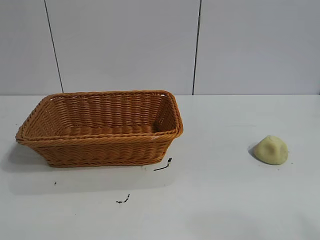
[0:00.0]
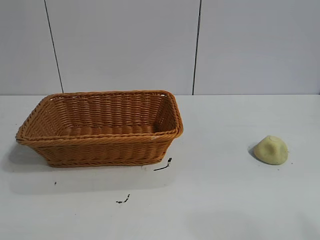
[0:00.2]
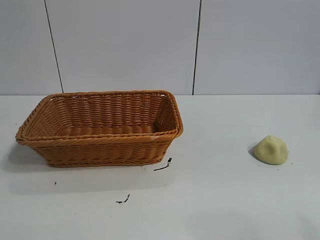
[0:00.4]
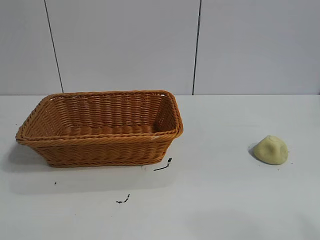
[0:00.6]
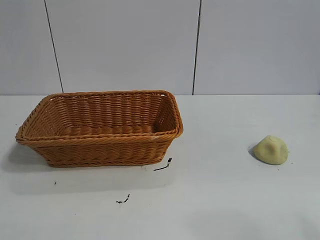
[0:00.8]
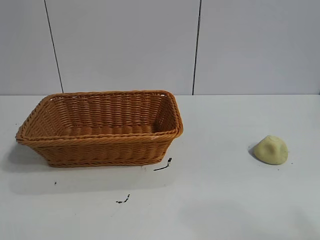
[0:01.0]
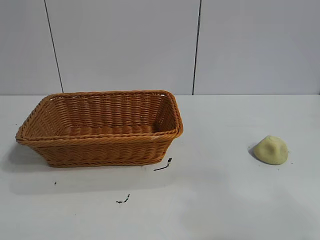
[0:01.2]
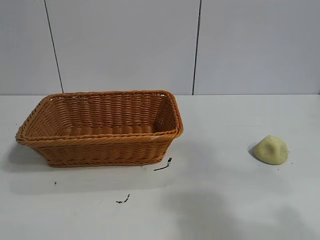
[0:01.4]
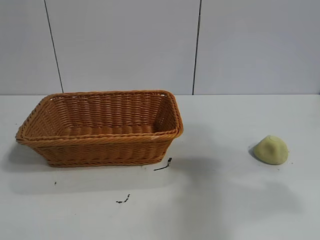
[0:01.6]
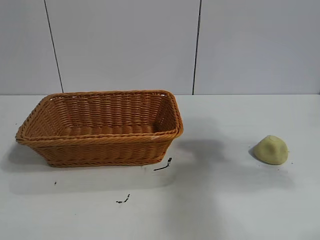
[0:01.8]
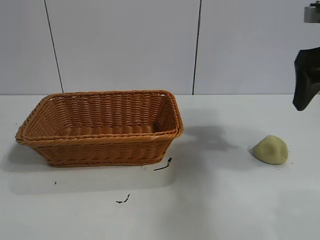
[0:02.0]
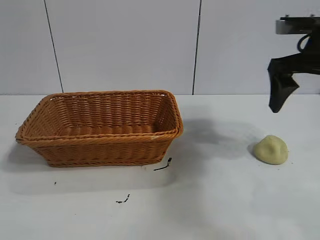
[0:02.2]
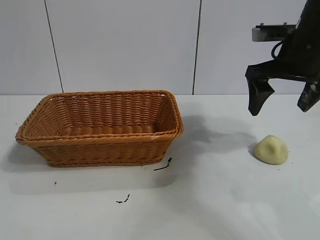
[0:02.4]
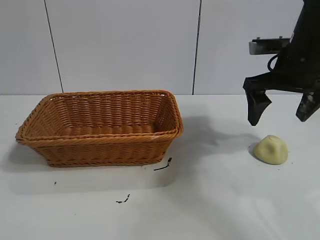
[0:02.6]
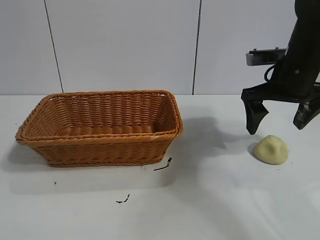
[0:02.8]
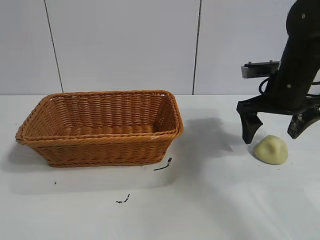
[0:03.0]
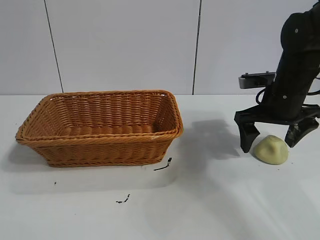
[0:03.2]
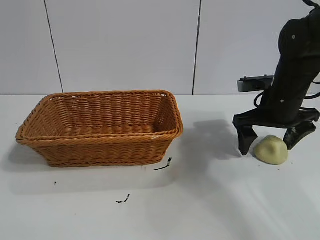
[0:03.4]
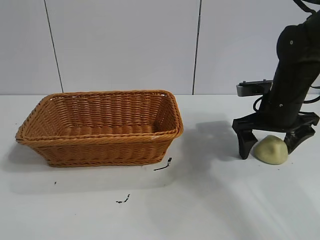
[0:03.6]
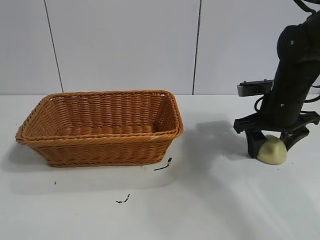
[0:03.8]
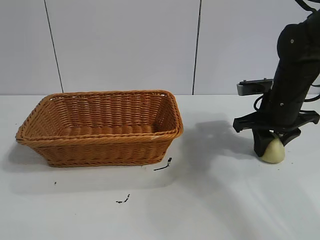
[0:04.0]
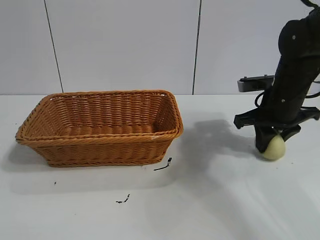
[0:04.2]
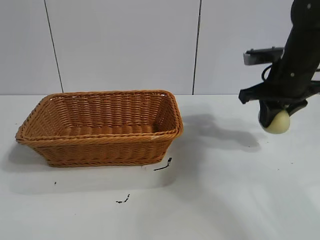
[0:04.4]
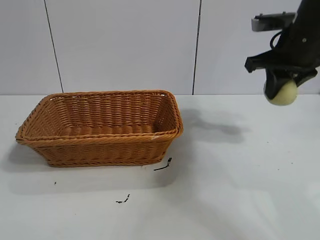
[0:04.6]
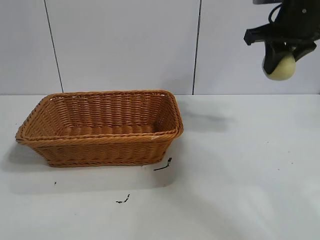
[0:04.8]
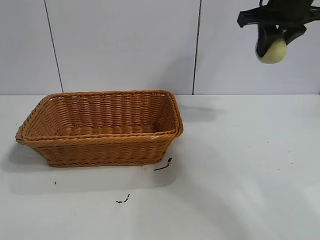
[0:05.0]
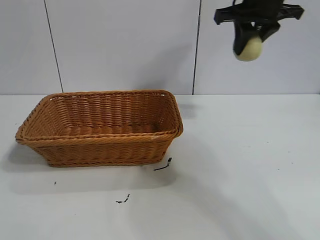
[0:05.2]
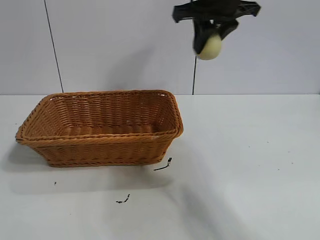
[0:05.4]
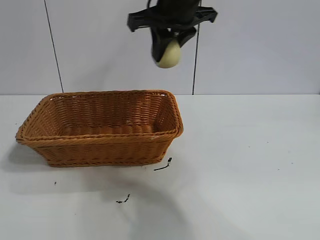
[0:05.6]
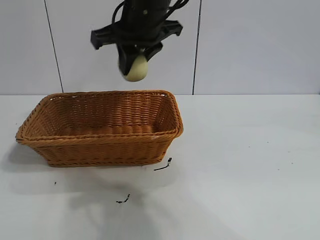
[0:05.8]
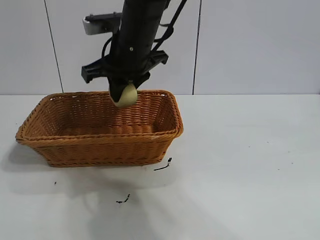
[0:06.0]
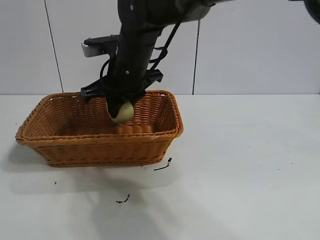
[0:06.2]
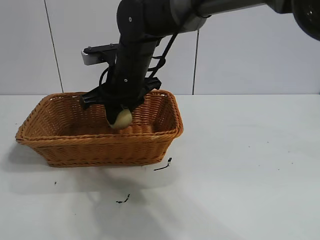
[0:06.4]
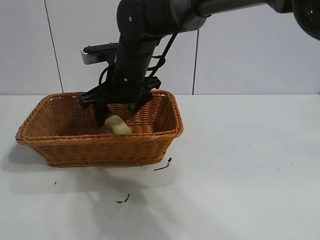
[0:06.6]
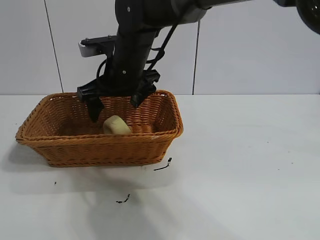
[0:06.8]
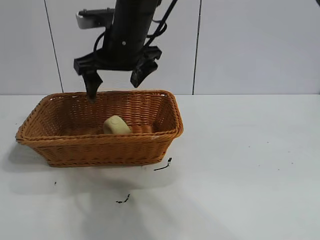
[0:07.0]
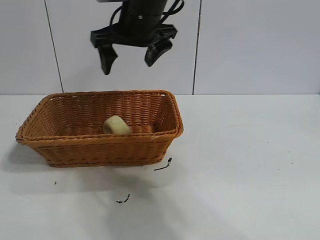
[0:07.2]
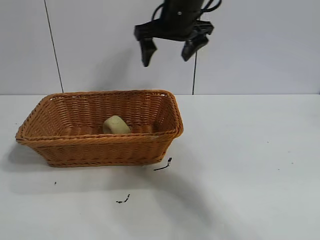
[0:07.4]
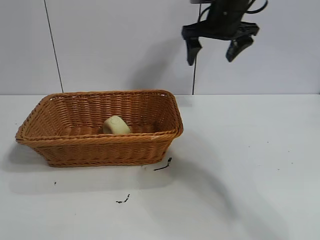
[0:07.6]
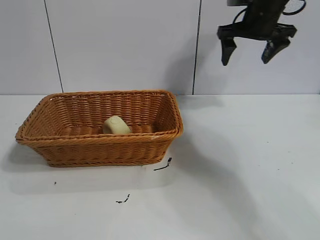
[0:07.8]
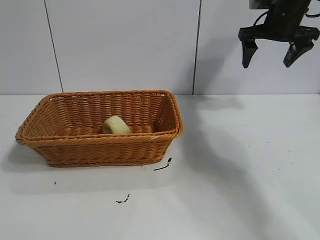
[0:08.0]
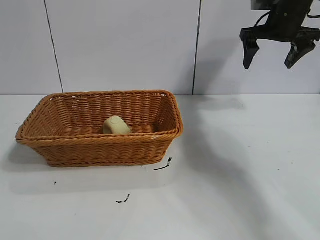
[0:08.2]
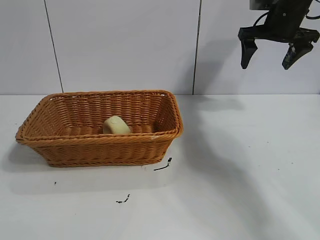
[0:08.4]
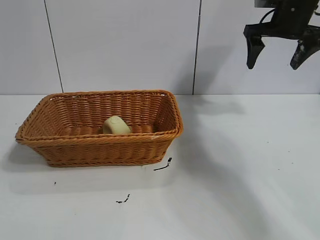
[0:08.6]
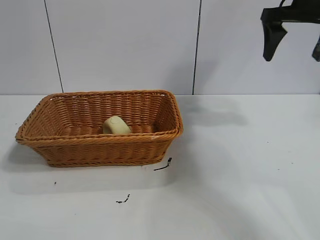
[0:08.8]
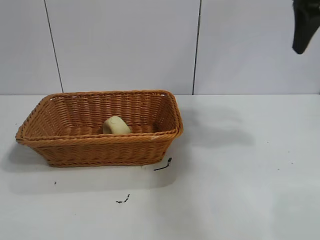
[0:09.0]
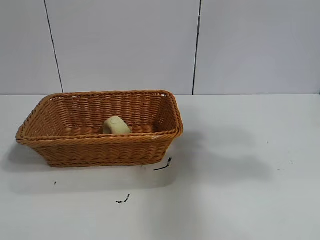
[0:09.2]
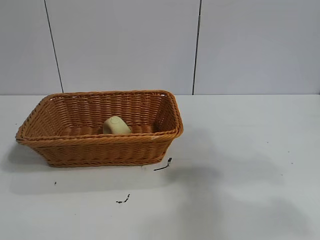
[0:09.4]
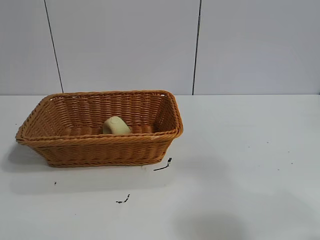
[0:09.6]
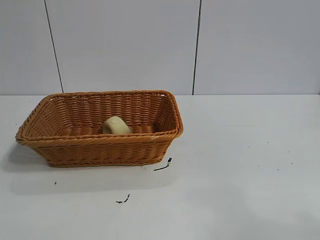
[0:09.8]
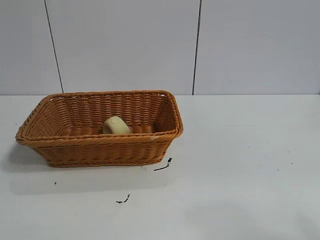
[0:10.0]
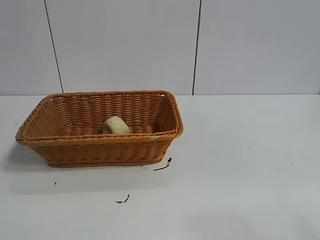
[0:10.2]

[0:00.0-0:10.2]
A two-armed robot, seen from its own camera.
Task of the whole recording: pick up the egg yolk pastry and put it into the basket.
Step, 0:01.0 to 0:03.8: Grasp egg yolk pastry with right gripper.
Step, 0:04.2 to 0:06.6: Place the egg yolk pastry in the basket with right gripper.

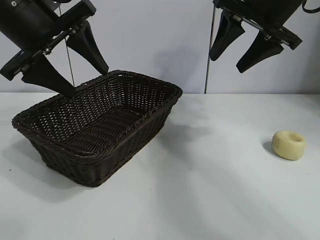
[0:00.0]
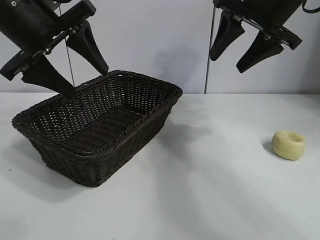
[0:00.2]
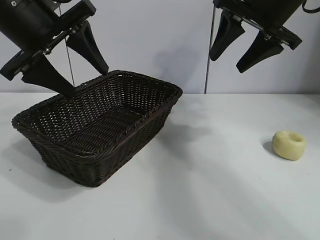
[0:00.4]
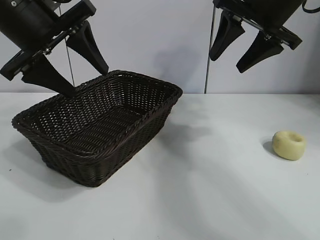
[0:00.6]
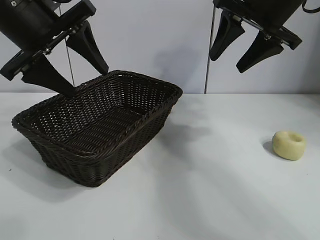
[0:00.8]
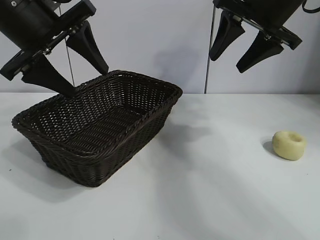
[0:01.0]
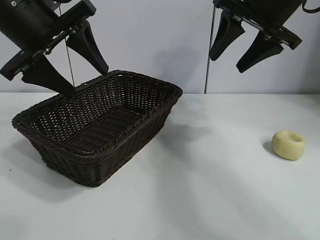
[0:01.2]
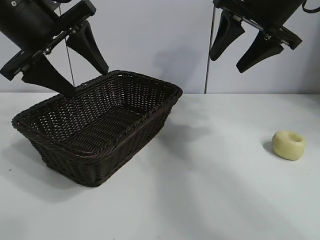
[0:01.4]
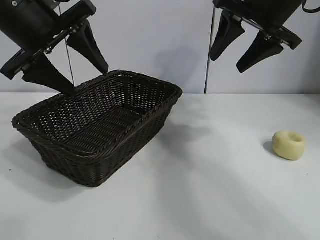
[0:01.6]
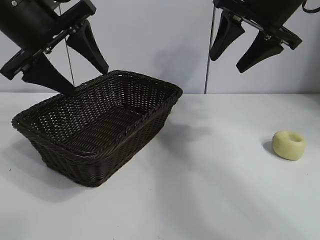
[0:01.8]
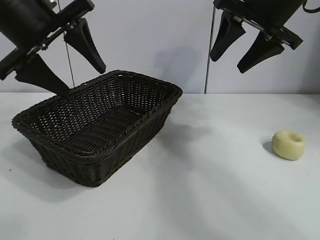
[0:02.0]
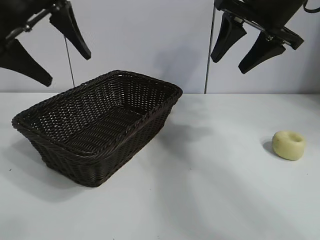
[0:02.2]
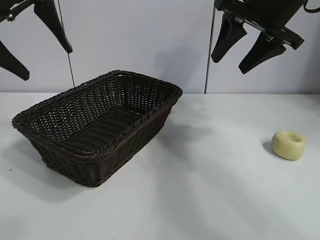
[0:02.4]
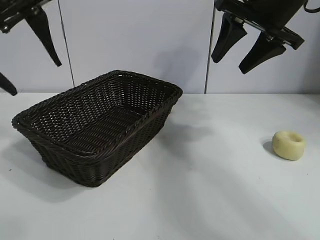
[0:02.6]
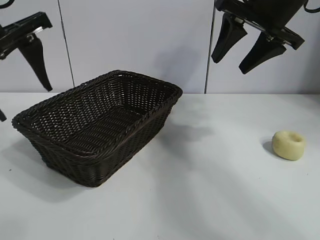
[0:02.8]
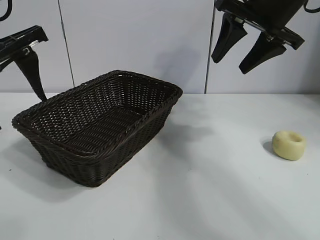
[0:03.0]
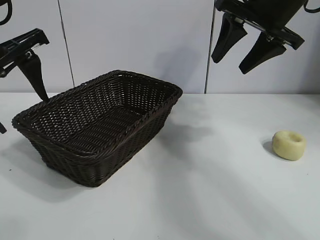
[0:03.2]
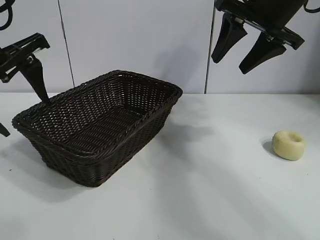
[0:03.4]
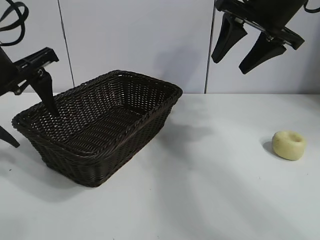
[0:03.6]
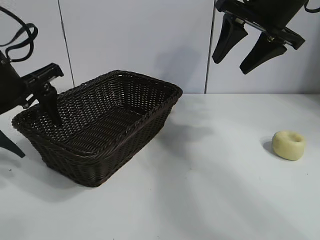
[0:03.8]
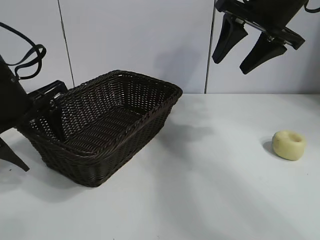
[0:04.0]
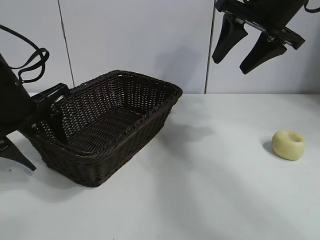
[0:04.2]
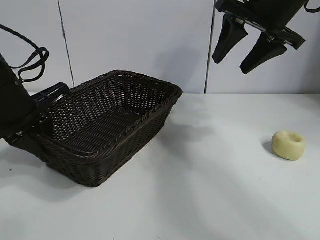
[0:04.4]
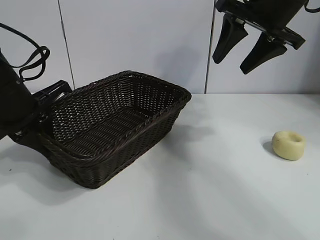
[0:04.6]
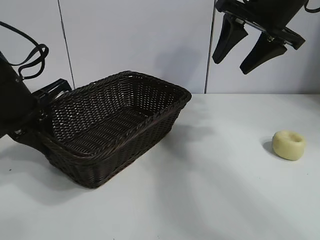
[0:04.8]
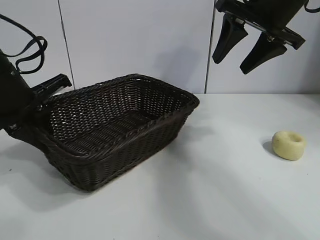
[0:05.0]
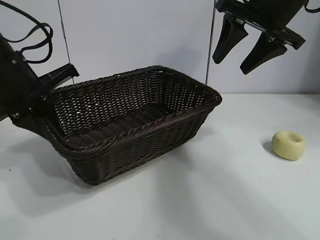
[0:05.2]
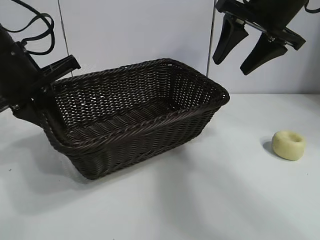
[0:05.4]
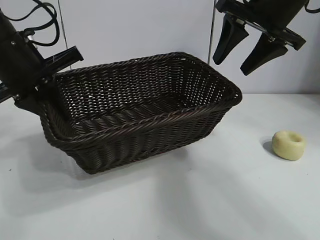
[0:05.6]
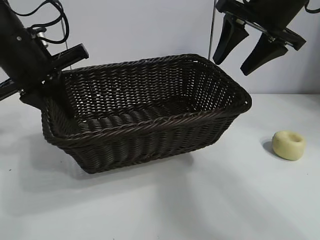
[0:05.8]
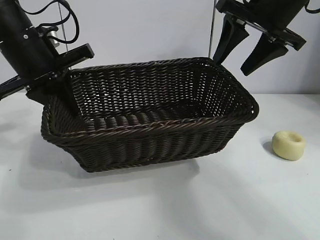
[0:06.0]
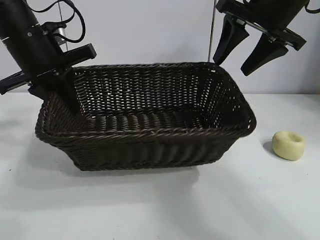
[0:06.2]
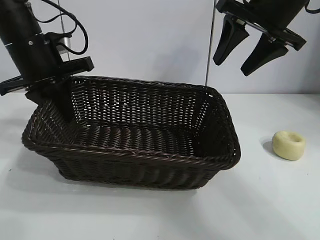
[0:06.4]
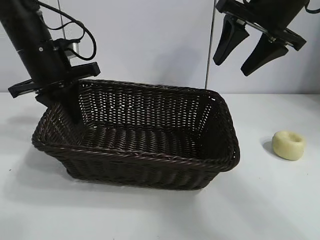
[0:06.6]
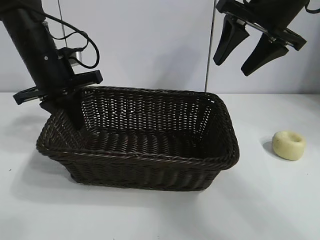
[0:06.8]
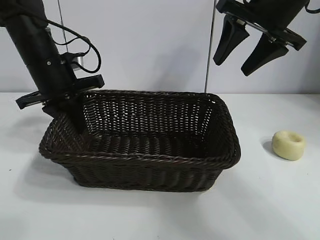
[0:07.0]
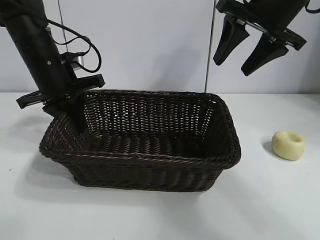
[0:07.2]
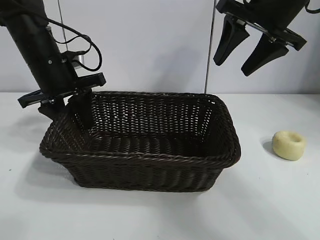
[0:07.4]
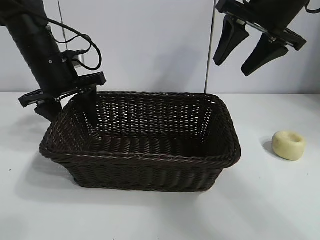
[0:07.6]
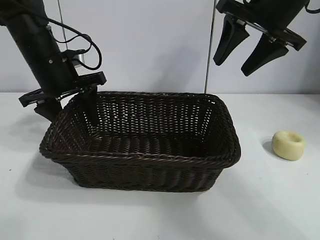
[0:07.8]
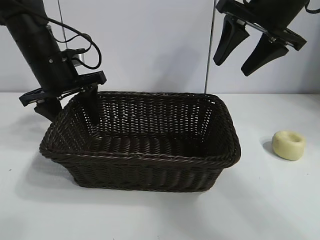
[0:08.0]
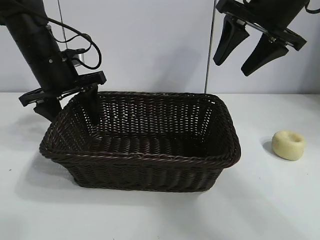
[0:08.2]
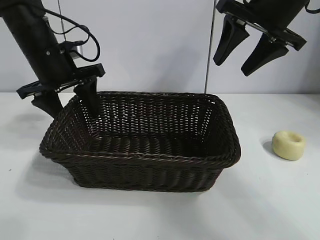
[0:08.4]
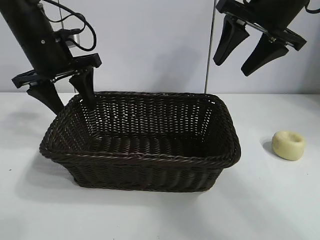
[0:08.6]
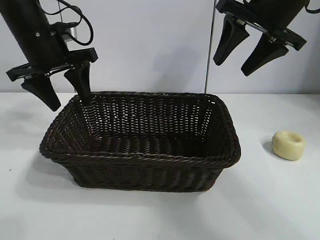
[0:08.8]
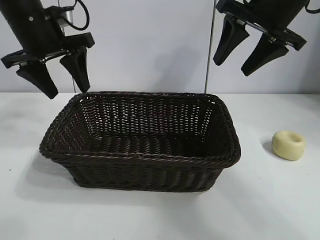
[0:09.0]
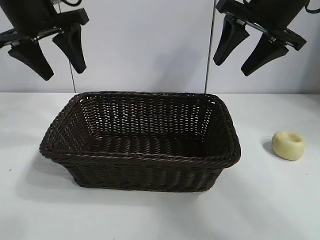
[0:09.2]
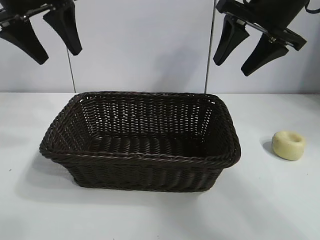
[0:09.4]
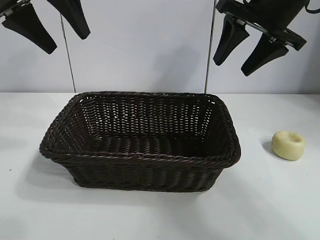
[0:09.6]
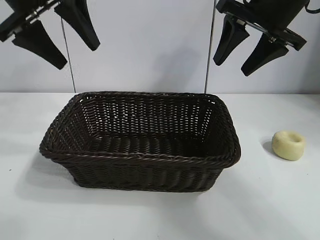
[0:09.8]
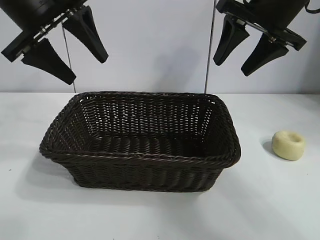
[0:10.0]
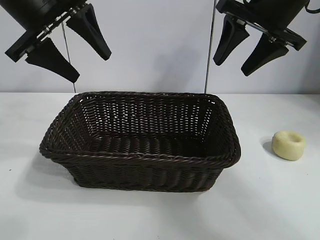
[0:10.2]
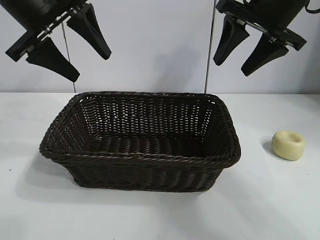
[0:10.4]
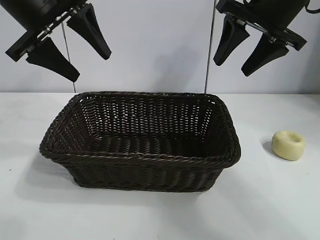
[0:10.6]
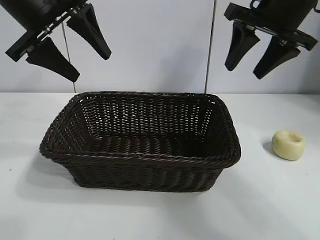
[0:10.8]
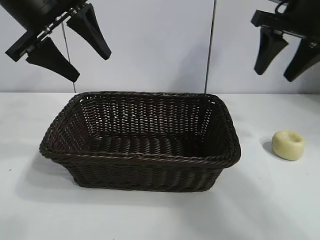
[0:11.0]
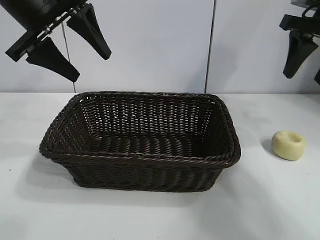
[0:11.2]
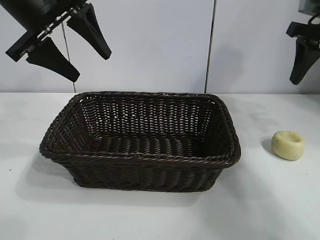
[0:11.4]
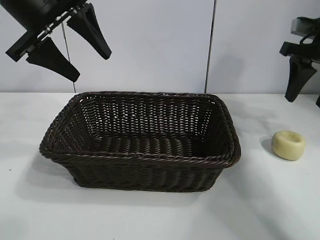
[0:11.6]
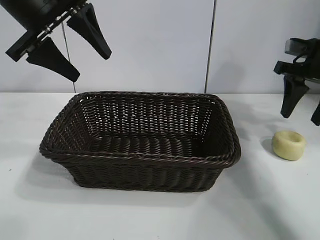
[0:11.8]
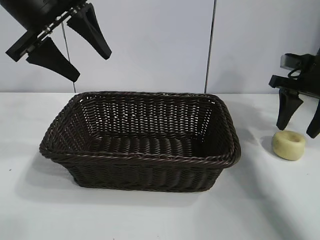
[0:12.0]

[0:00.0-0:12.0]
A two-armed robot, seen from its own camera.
Task of the whole recording: pick up the egg yolk pastry and put it into the basket.
Step, 0:01.4 to 0:04.4: Grasp the basket with left gripper.
Step, 0:04.6 to 0:07.6: Place the basket in the center of view with left gripper.
